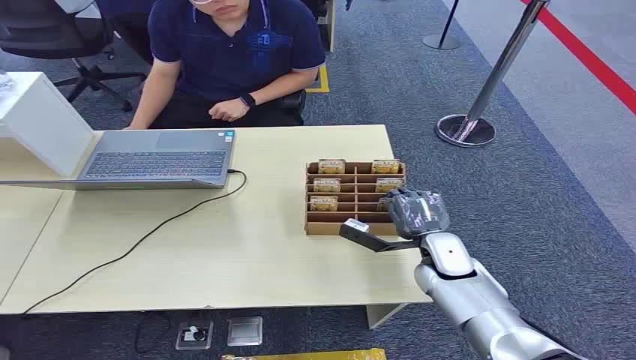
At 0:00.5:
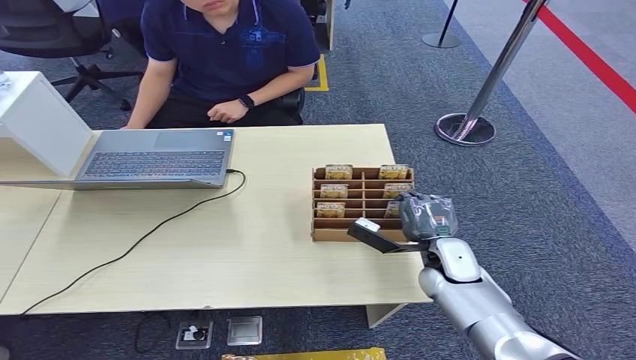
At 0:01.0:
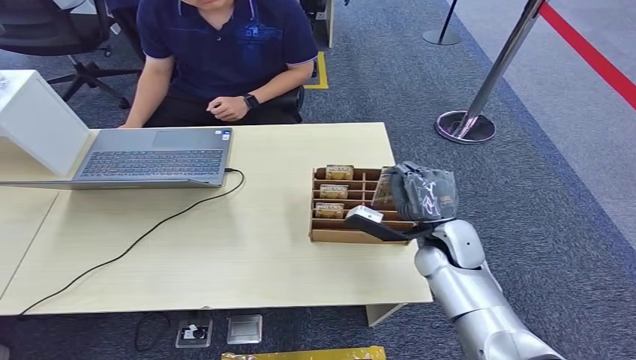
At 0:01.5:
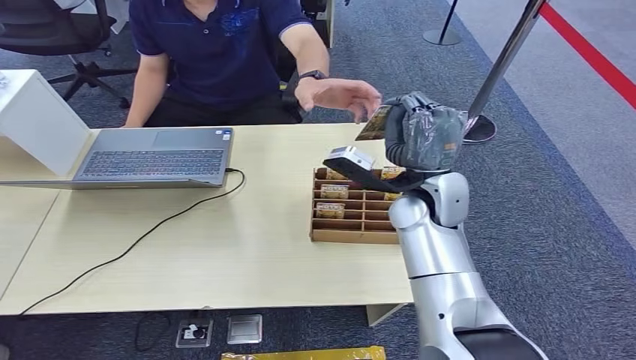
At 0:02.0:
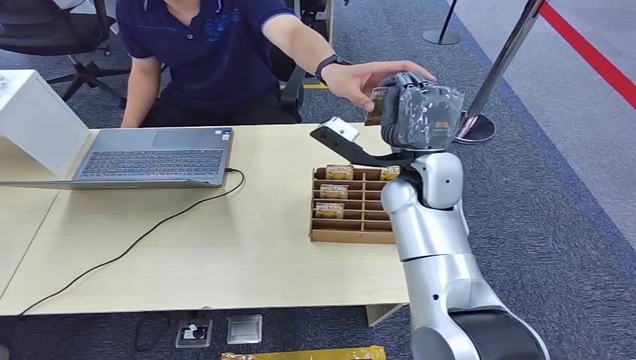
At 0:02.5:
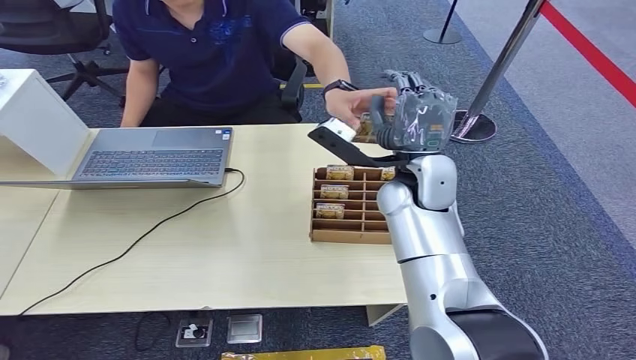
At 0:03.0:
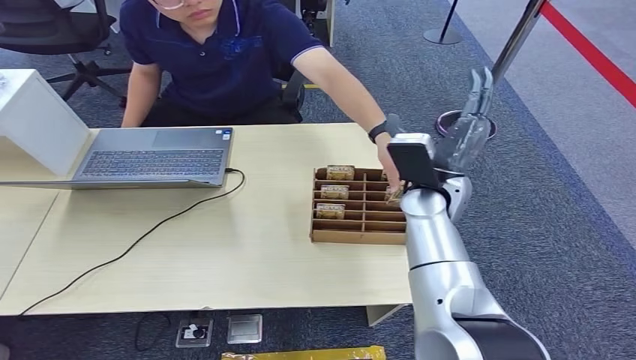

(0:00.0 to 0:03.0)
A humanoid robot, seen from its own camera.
Step, 0:00.0 - 0:01.0: Pick up the room card from the card holder.
Step, 0:01.5 - 0:03.0: Hand the room card to the target.
0:01.5 - 0:03.0: The right hand travels downward, backward and to the right by roughly 15 cm.
